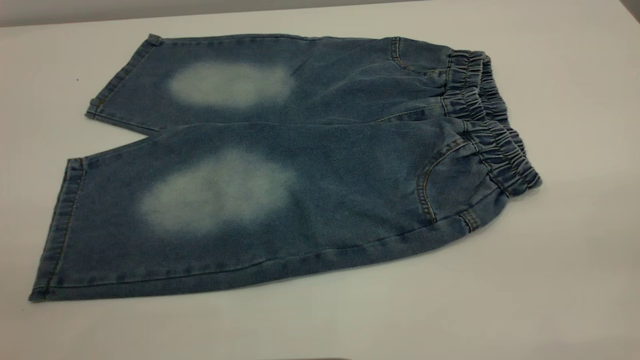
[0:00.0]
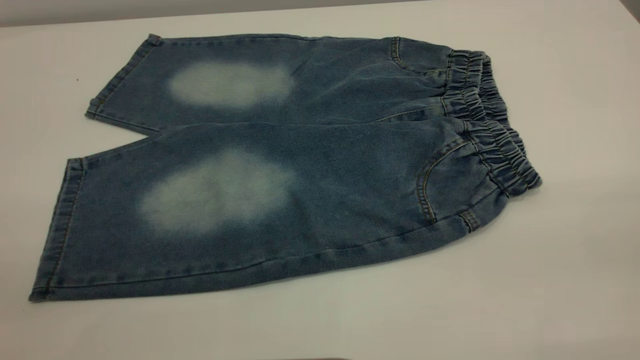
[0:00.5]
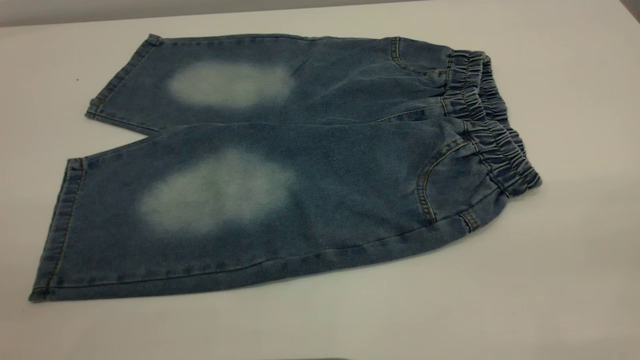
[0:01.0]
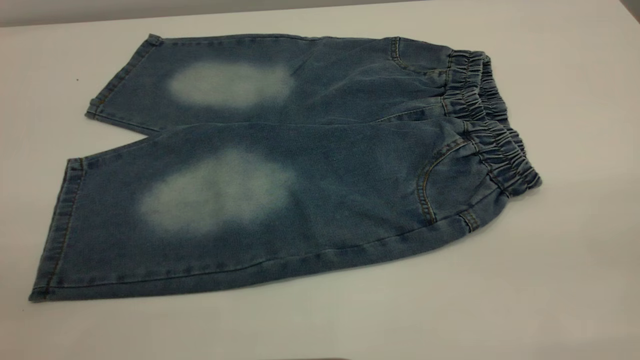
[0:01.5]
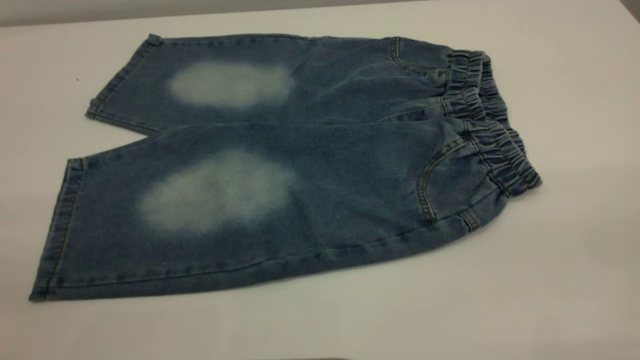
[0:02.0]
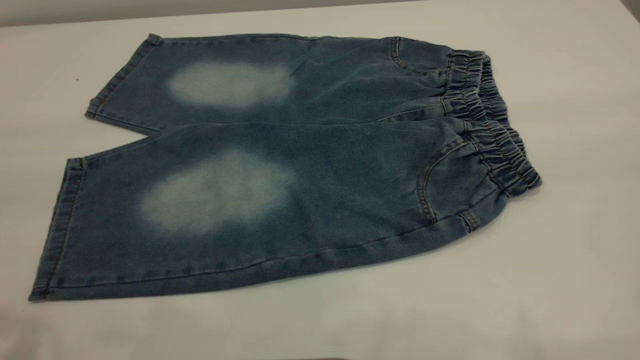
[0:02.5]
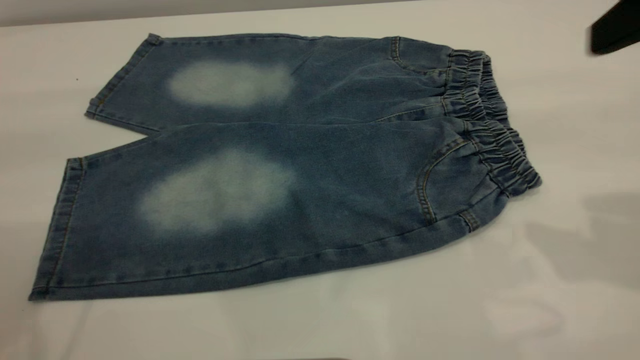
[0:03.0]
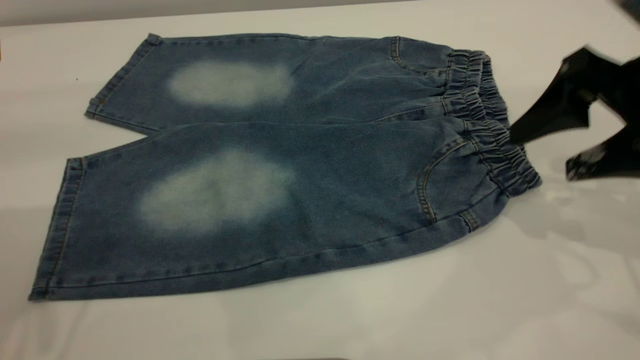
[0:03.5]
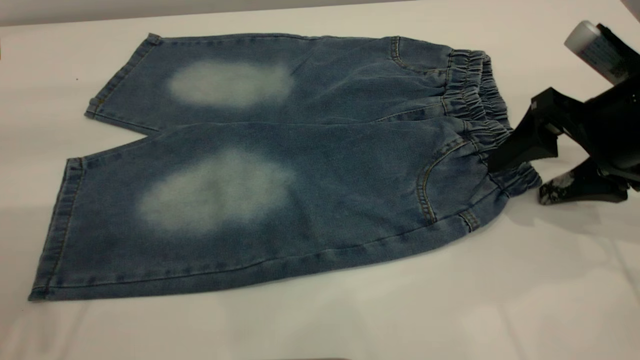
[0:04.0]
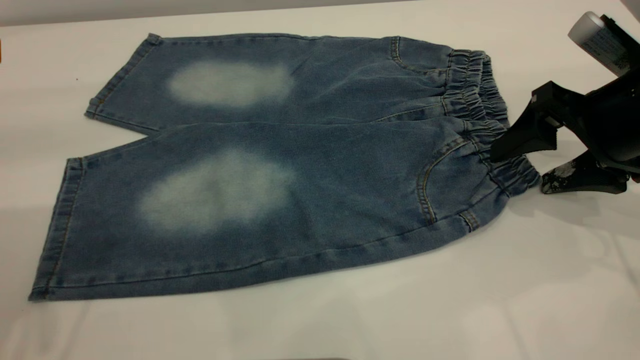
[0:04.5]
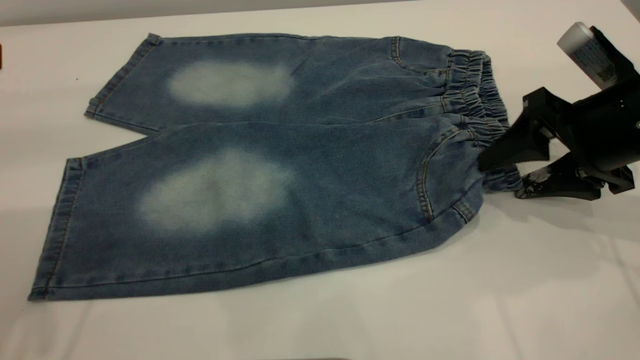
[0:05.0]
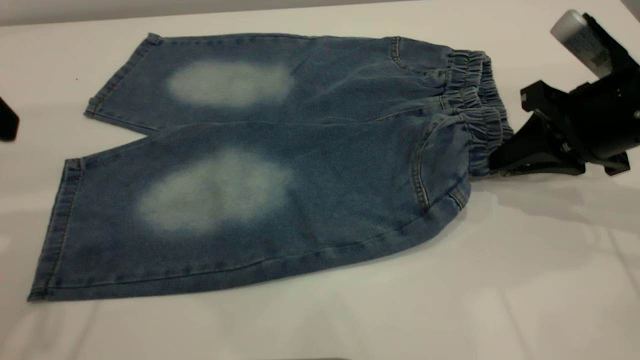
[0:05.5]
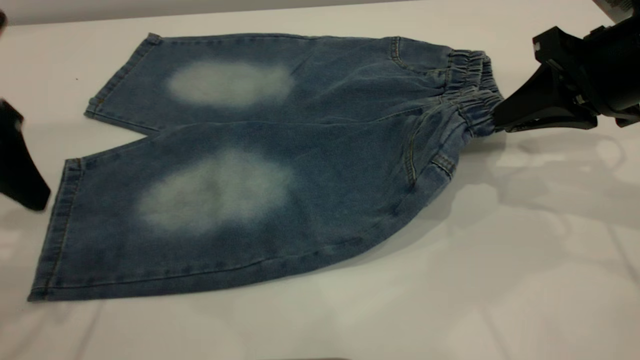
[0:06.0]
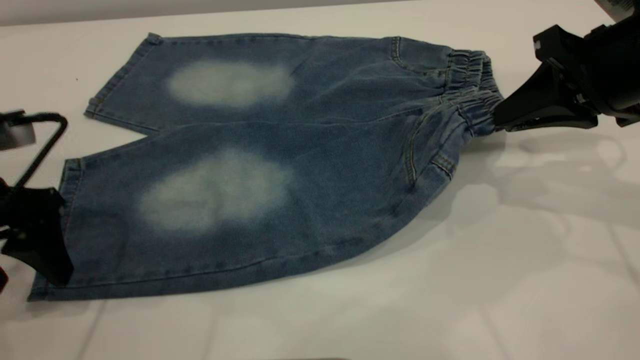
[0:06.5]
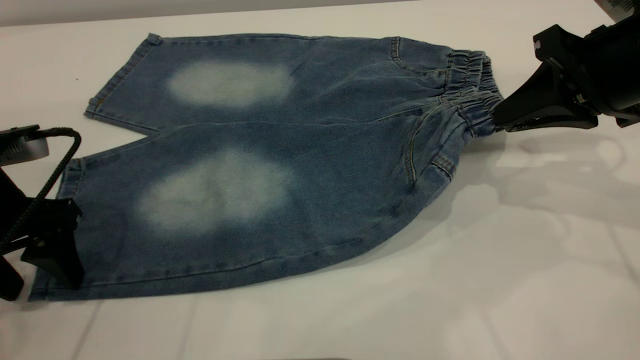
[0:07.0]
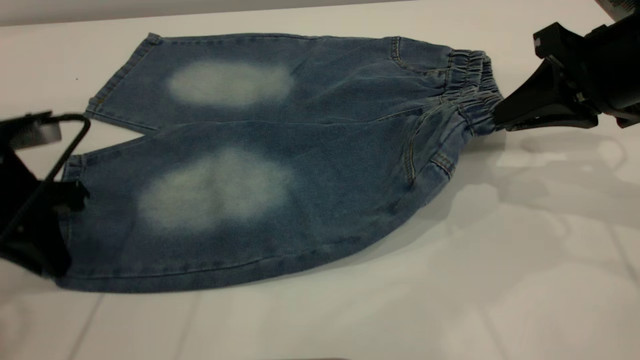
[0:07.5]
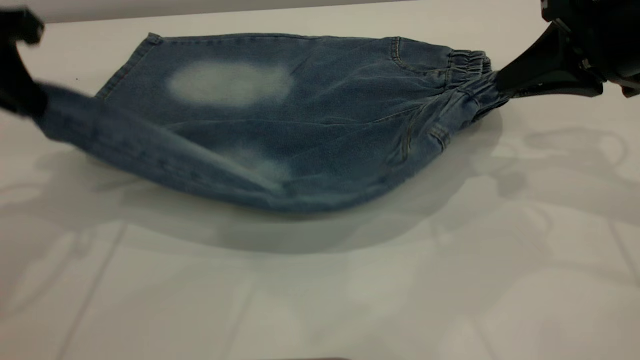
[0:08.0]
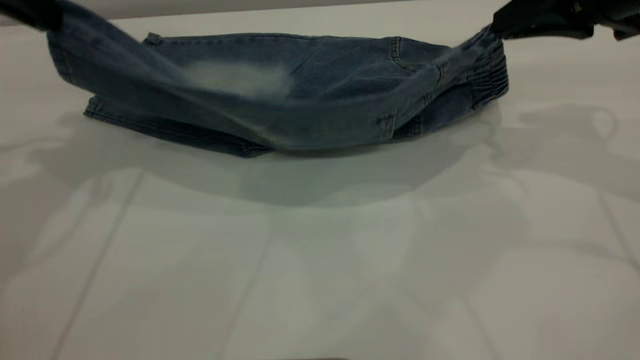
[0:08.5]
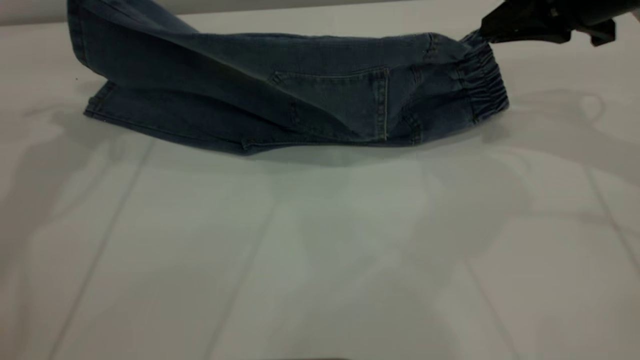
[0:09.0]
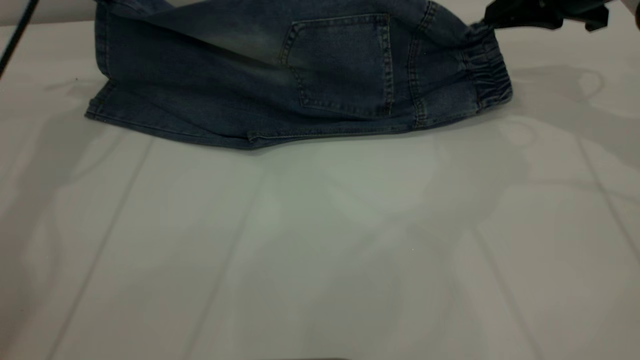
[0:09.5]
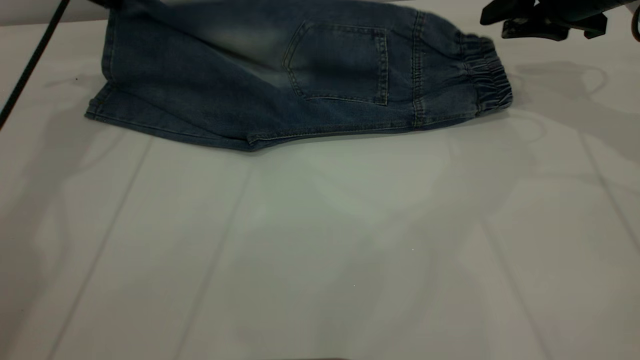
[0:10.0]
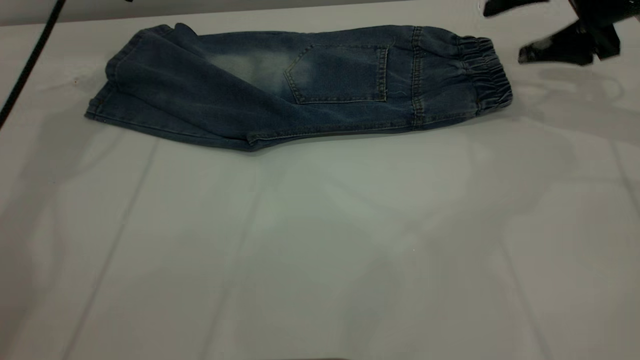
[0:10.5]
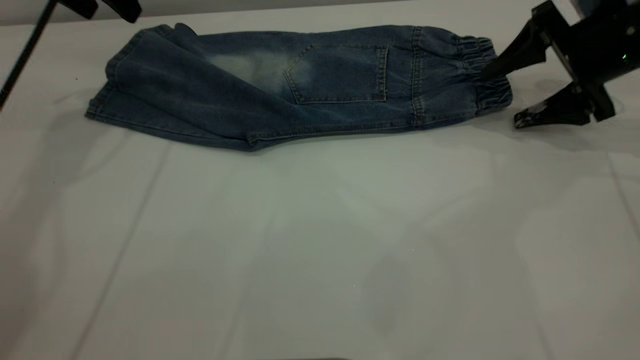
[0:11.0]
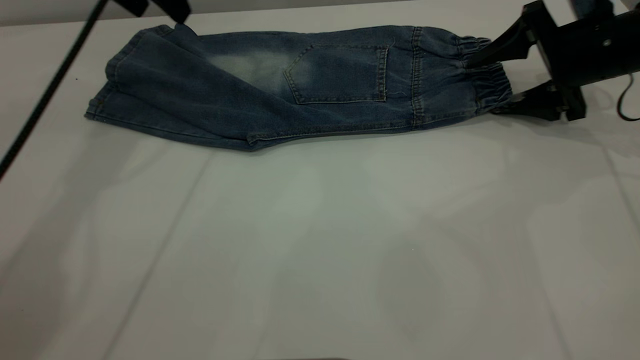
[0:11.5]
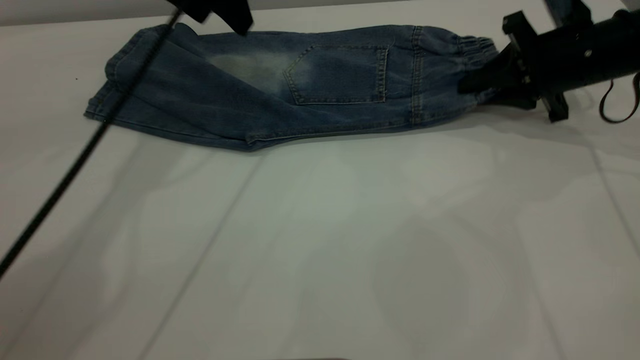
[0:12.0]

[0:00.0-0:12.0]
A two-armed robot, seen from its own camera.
Step, 0:00.0 to 0:10.0: Fold the bottom of the pants upward.
0:02.0 to 0:04.0: The right gripper travels forward and downward by about 35 cm.
0:04.0 to 0:06.0: The left gripper shifts approximately 10 cm downward, while the right gripper closes up.
0:06.0 to 0:08.0: The left gripper heads forward, covering approximately 5 cm, goes downward and returns, about 10 cm each way, and closes its fingers.
0:08.0 to 0:10.0: The right gripper is displaced forward by some 10 cm, and opens up, while the left gripper is displaced forward by some 20 cm.
0:10.0 to 0:12.0: The right gripper heads downward, covering approximately 5 cm, and closes its fingers; the left gripper moves to the right, some 15 cm, and opens.

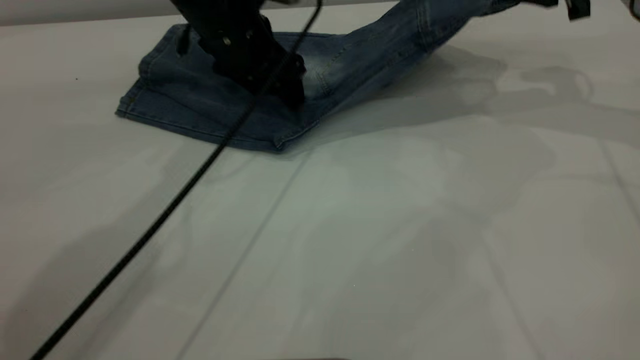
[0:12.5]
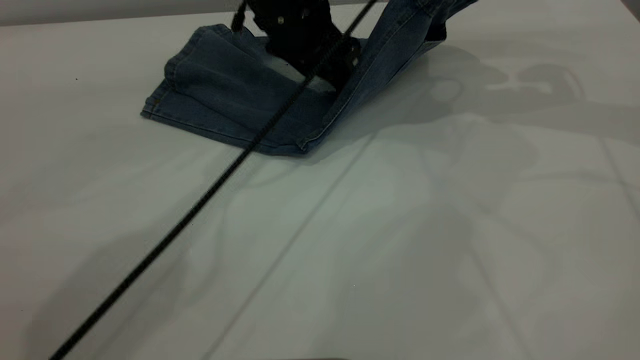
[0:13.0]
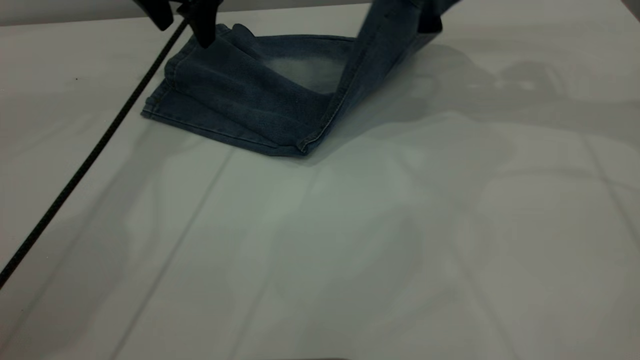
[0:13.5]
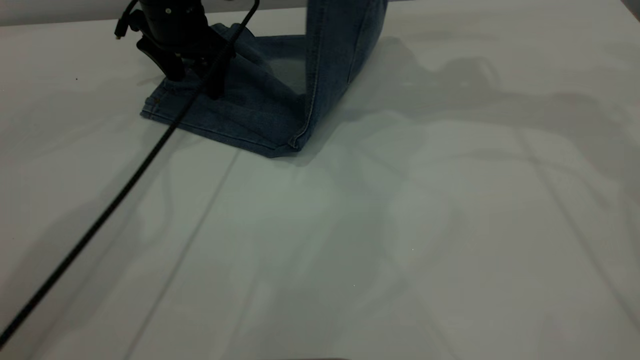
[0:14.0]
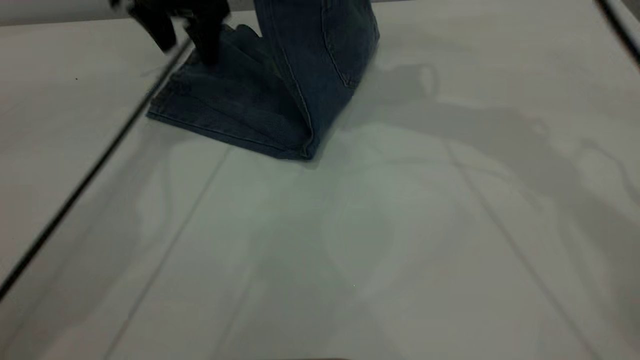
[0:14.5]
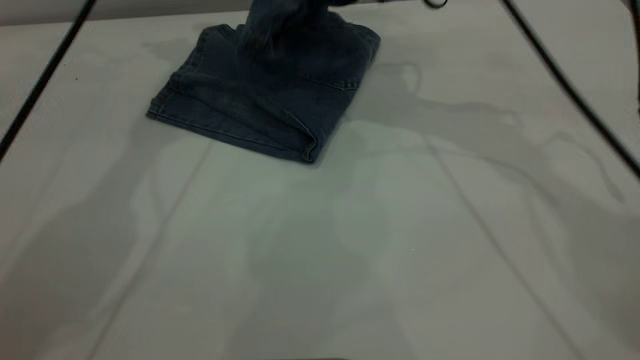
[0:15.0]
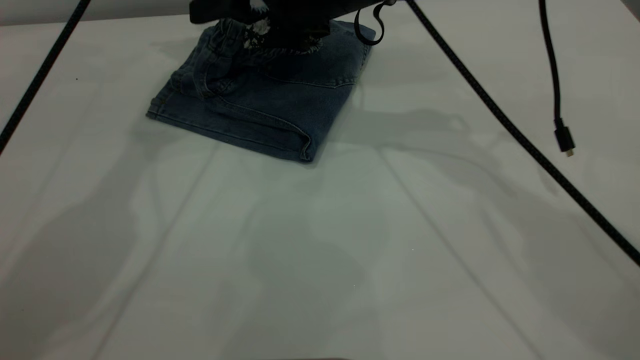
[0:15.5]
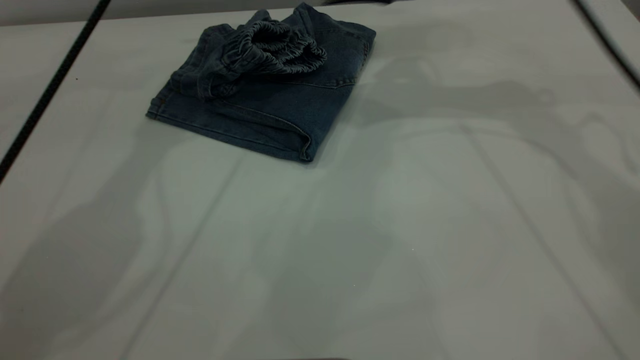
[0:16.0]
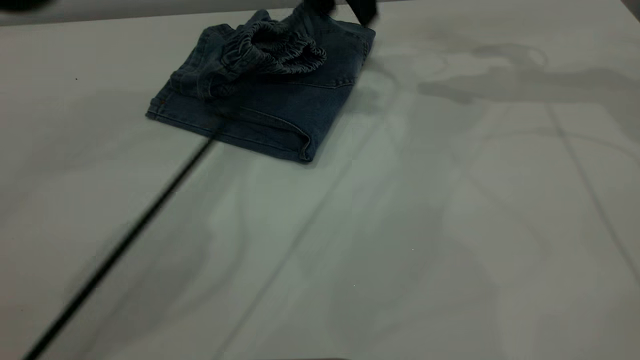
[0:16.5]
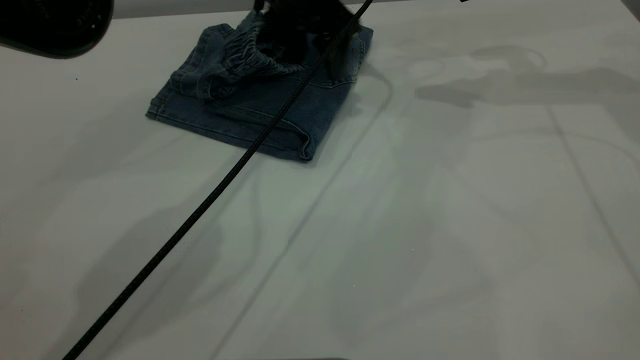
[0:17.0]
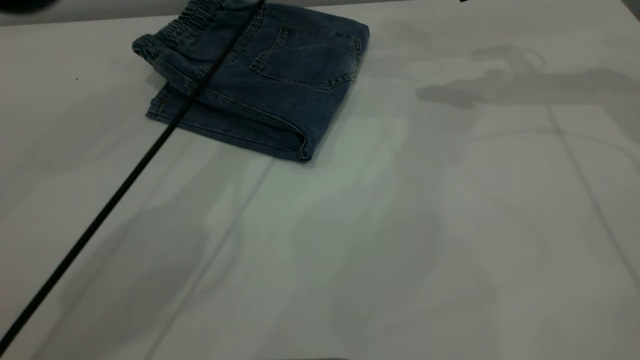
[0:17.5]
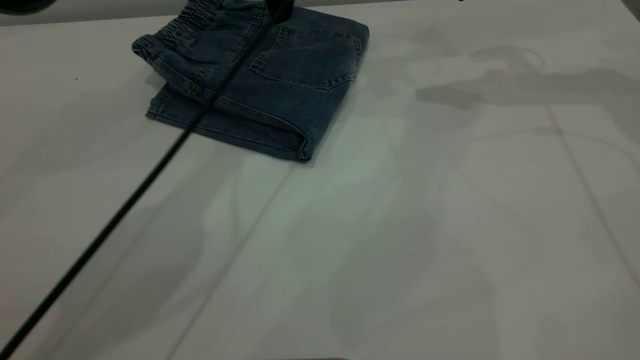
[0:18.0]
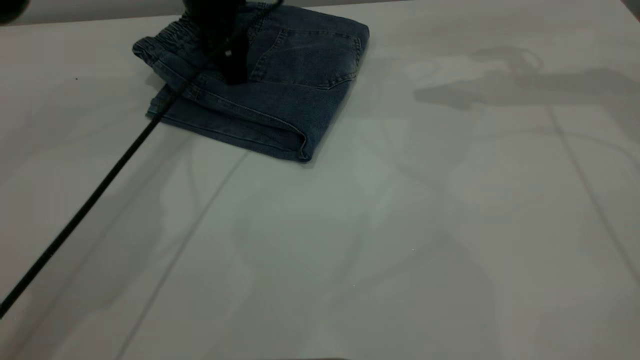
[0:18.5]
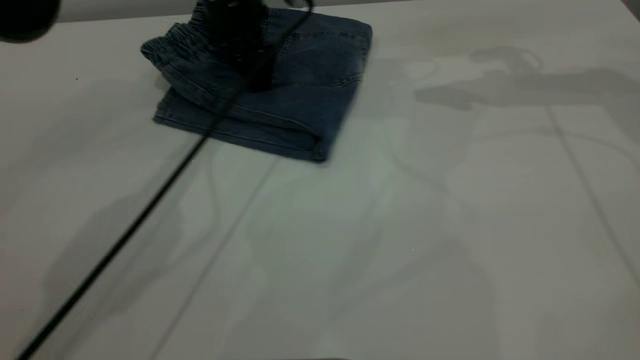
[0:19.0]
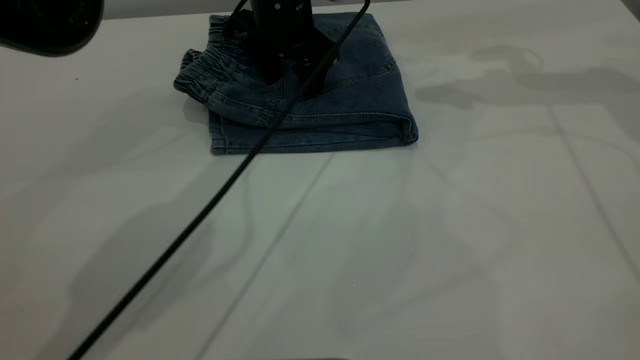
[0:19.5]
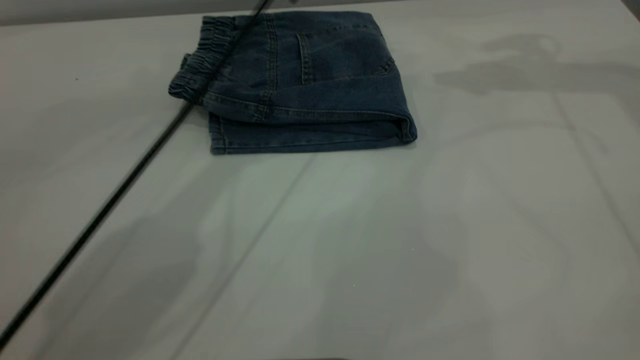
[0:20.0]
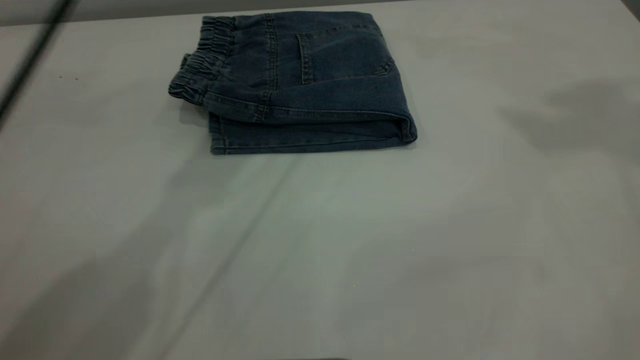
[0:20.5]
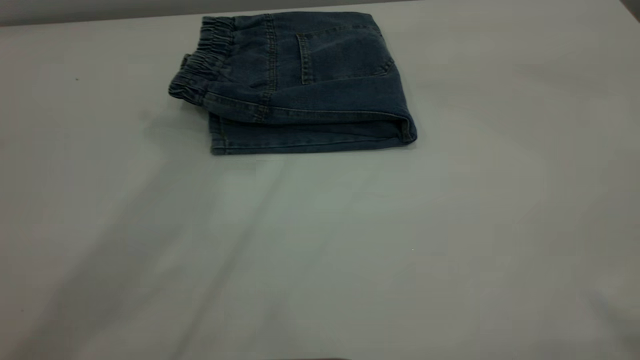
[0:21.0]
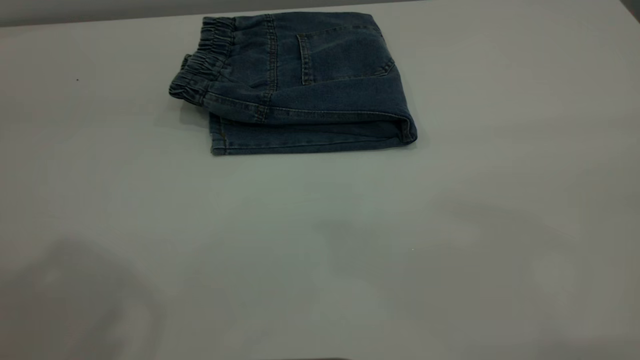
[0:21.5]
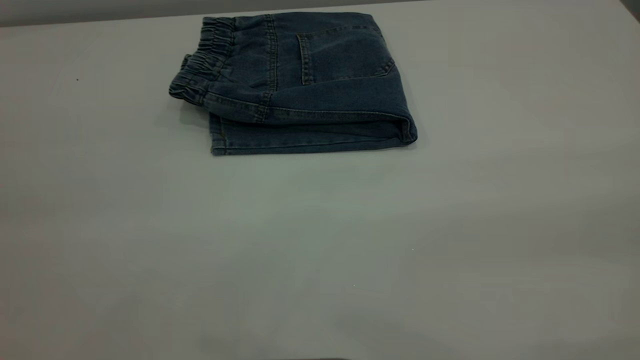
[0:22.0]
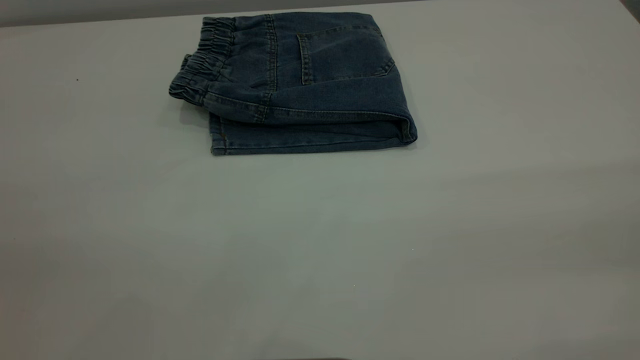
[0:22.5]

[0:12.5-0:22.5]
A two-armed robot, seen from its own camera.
Step, 0:12.5 to 0:16.0: Fold your pants from right to left.
0:12.5 to 0:14.5: The right gripper travels to the left by some 20 cm, while the left gripper goes some 10 cm to the left, forward and upward.
0:14.5 to 0:16.5: The grippers both shift to the right by some 15 cm. The right gripper opens up.
0:16.5 to 0:18.5: The left gripper goes some 15 cm to the left and downward.
0:18.5 to 0:20.5: The left gripper heads upward, covering some 30 cm. The right gripper is displaced upward and backward by some 35 cm.
0:20.5 to 0:22.5: The left gripper travels backward and to the left by some 40 cm.
